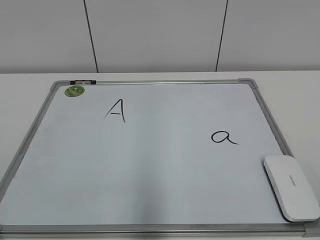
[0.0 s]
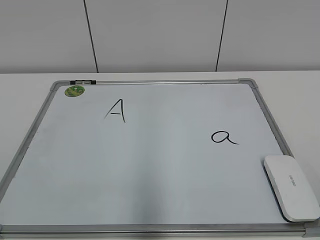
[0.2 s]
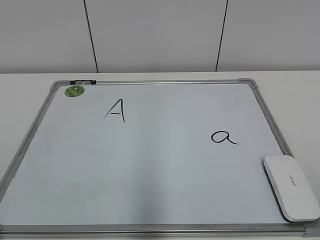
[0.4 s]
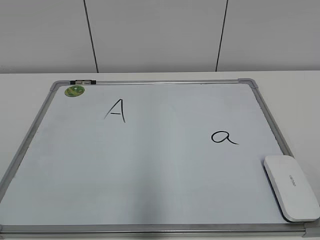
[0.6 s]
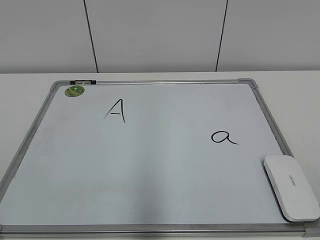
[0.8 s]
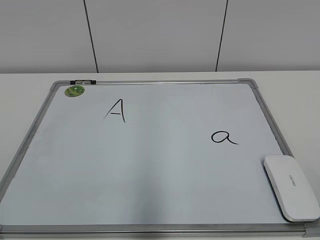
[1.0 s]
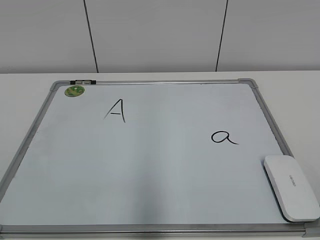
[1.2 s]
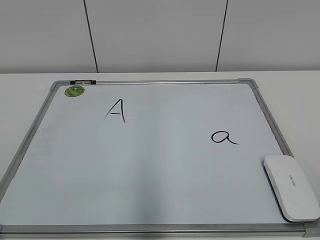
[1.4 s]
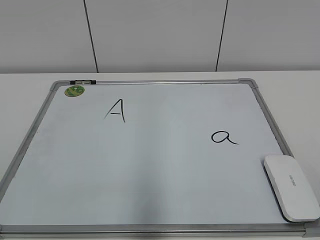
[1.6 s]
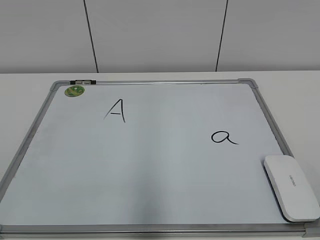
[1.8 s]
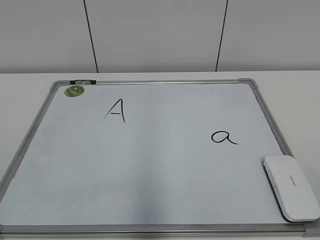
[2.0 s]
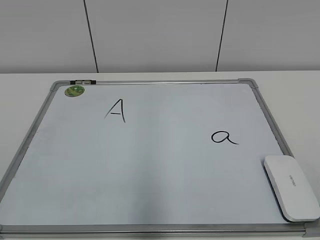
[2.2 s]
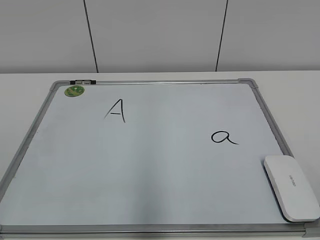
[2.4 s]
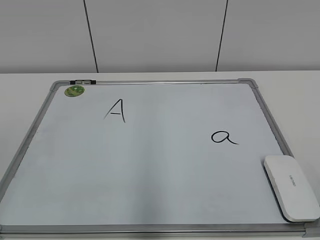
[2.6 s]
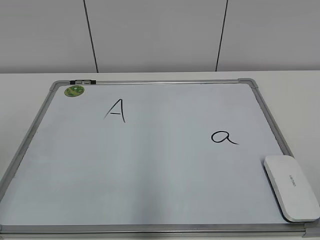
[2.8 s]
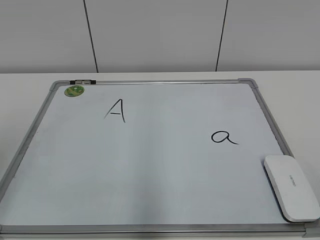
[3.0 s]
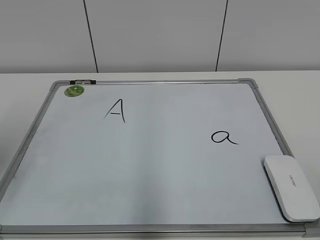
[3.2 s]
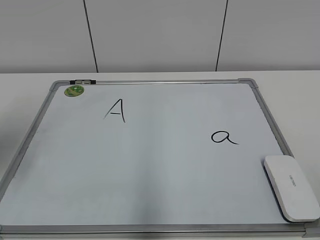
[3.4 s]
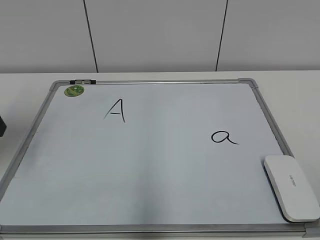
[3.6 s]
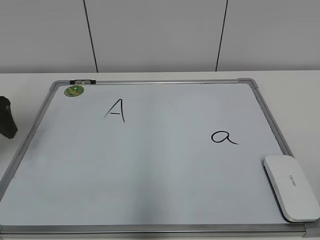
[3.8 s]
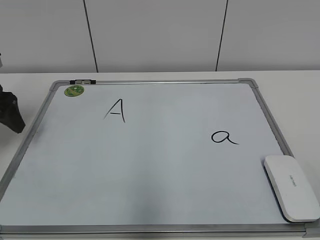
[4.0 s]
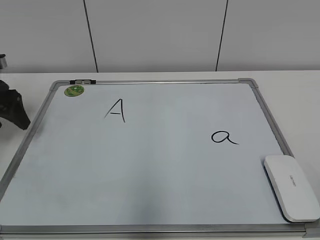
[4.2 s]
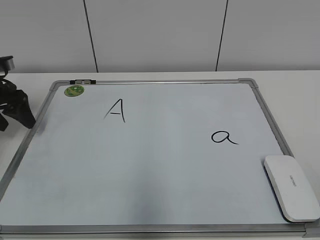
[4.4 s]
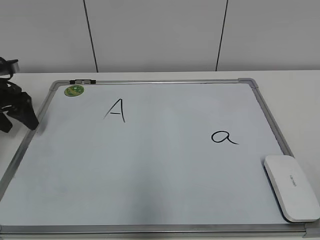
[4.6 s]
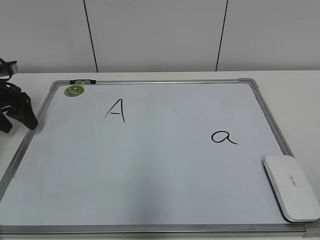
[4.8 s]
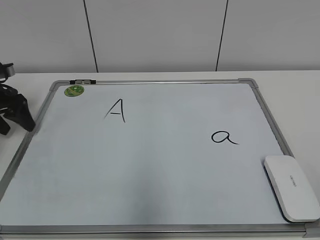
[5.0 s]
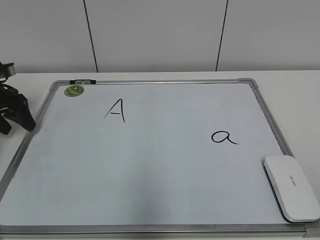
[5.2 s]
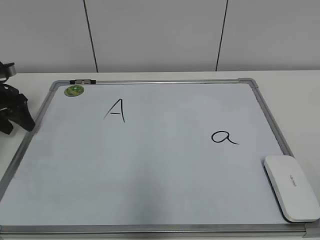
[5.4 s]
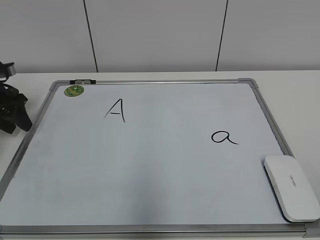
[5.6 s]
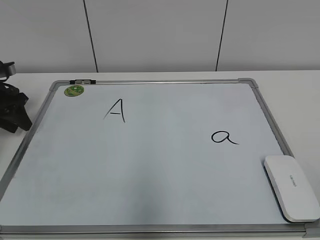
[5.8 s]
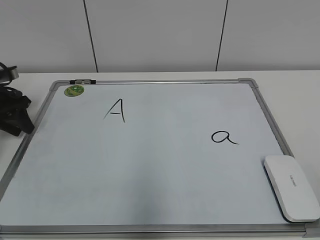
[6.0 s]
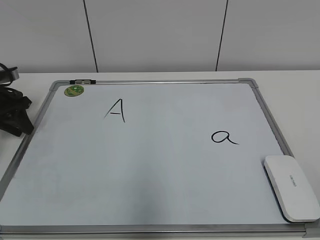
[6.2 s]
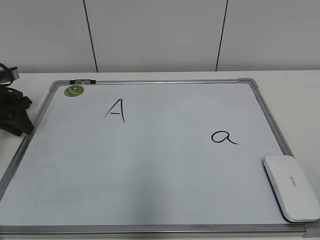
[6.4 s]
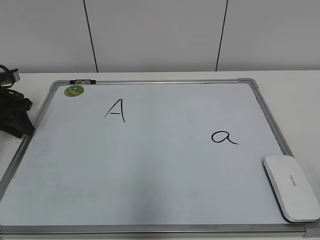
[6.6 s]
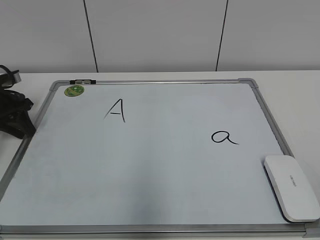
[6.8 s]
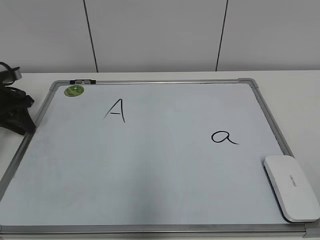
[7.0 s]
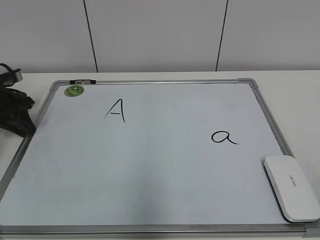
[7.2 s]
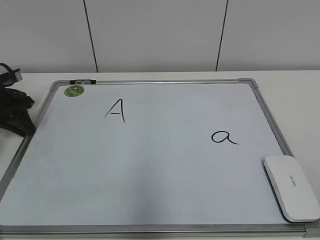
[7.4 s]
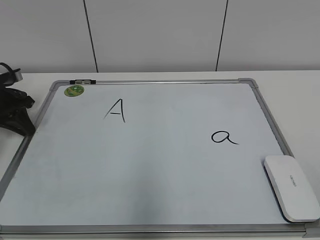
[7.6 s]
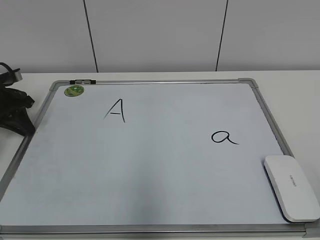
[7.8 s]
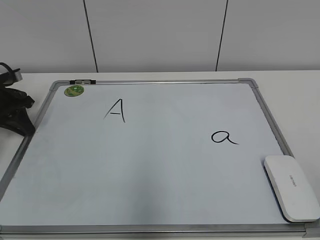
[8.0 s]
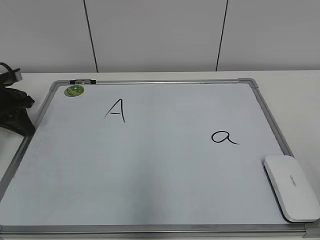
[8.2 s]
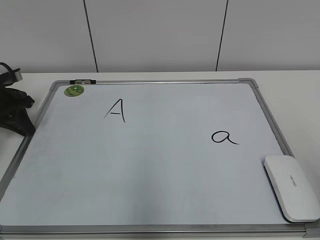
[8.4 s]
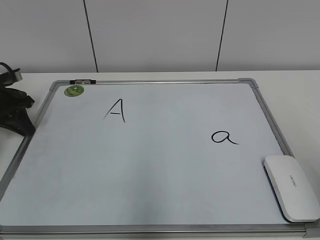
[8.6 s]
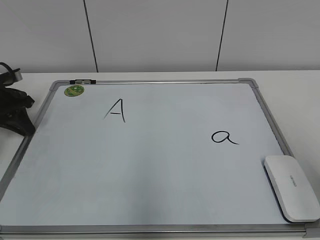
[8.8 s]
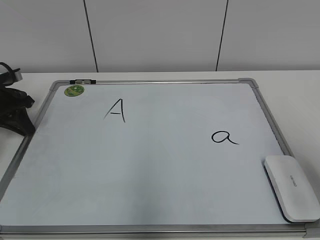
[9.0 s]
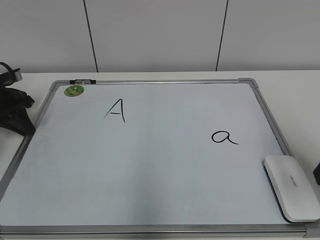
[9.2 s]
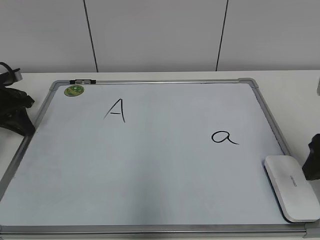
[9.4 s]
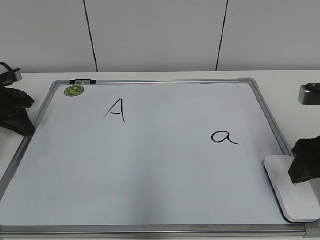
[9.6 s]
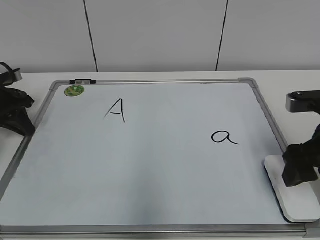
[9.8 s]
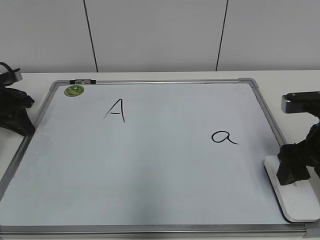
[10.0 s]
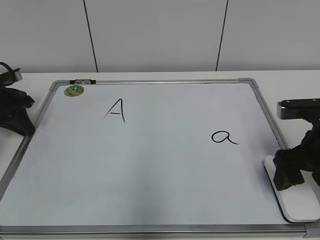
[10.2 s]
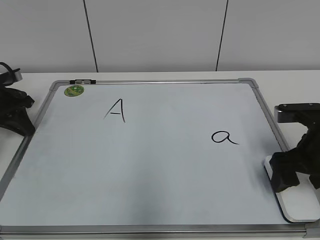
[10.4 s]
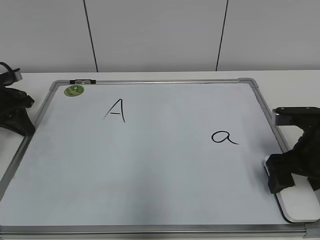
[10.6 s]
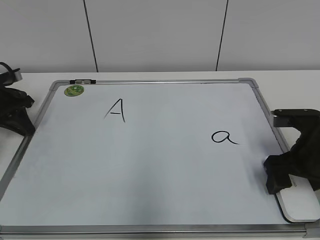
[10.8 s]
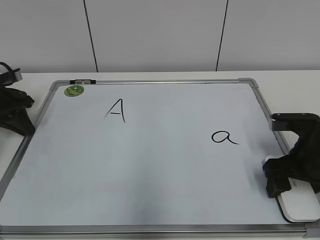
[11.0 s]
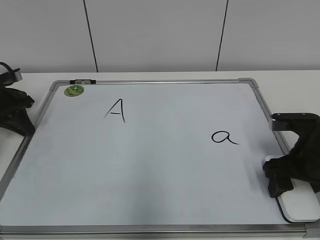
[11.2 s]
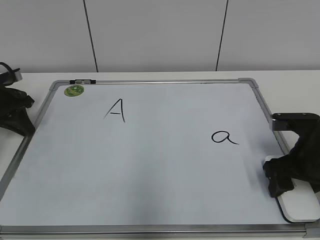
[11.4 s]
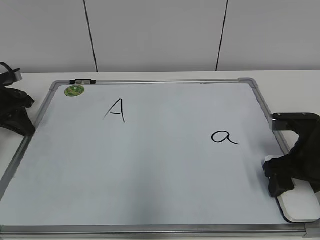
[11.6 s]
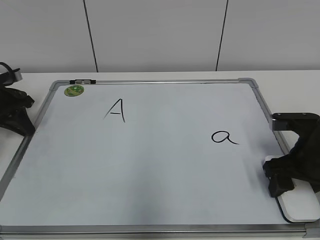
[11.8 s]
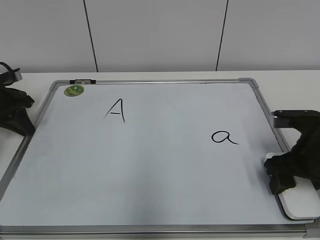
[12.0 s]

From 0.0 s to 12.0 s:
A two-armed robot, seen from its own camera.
Task of the whole recording: pick up the eraser on the blackboard and erase the letter "a".
Step, from 0.0 s to 7.2 s: Hold the drawing board steady with your left hand.
Step, from 7.4 s to 11.8 s: Grab the eraser with your right hand.
From 3.0 s to 4.4 s: The left gripper goes approximately 25 cm forward and downward.
From 4.4 s to 6.0 s: The left gripper closes up.
From 6.0 s to 7.6 s: The left gripper closes up.
From 7.6 s to 9.0 s: The right gripper is displaced forward by some 15 cm.
From 9.0 s to 10.4 s: The right gripper goes about 15 cm forward and downward, and opens.
From 10.4 s to 12.0 s: The right gripper closes its fingers.

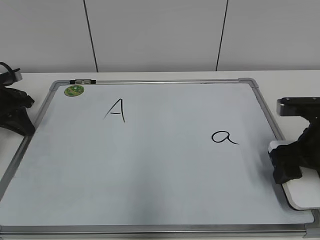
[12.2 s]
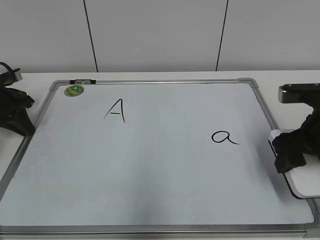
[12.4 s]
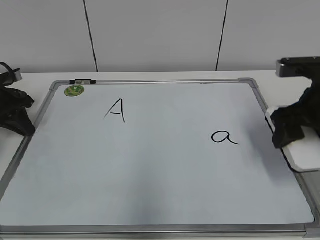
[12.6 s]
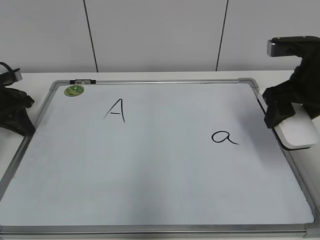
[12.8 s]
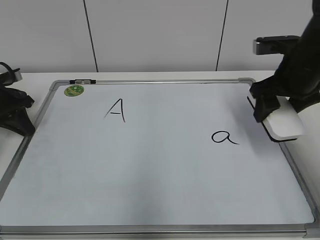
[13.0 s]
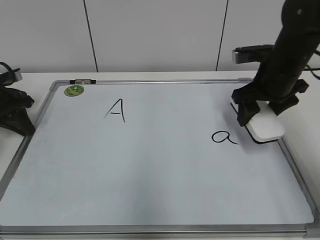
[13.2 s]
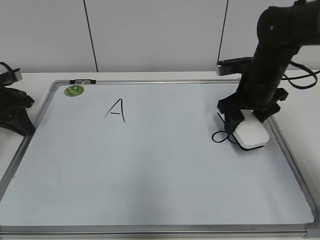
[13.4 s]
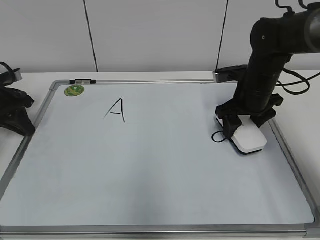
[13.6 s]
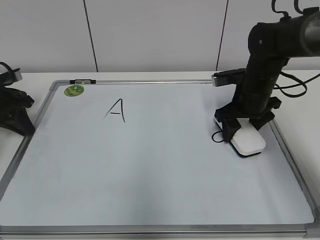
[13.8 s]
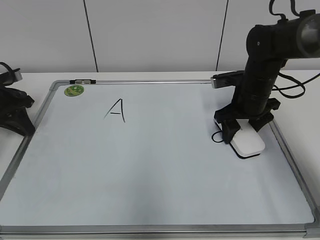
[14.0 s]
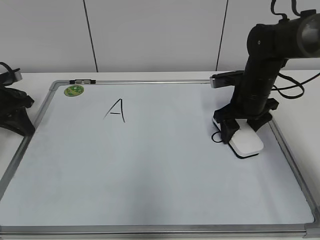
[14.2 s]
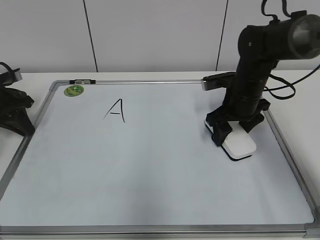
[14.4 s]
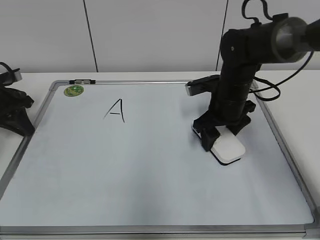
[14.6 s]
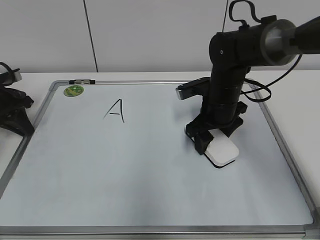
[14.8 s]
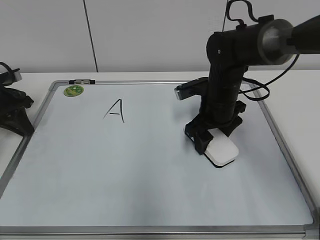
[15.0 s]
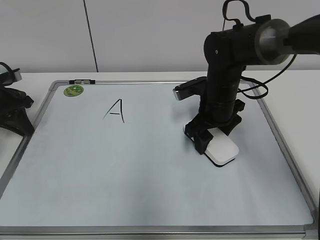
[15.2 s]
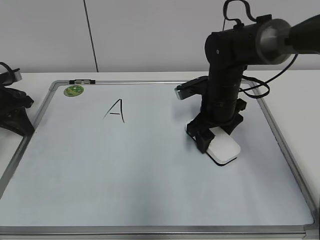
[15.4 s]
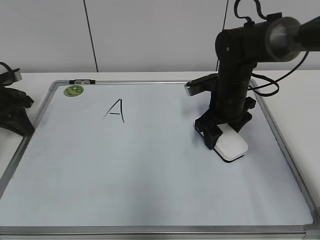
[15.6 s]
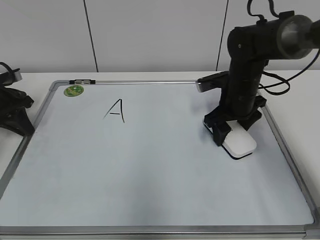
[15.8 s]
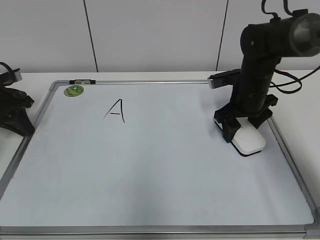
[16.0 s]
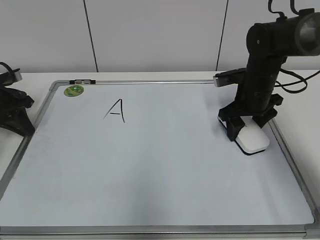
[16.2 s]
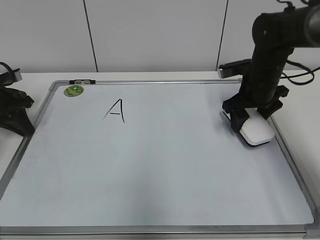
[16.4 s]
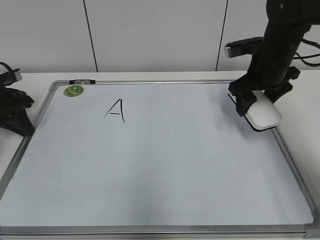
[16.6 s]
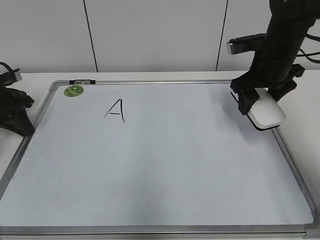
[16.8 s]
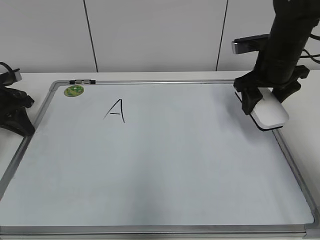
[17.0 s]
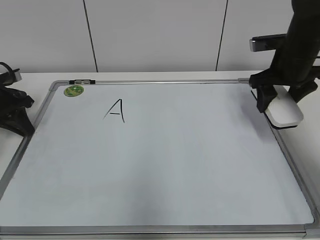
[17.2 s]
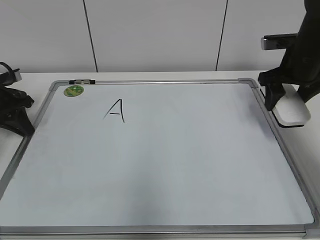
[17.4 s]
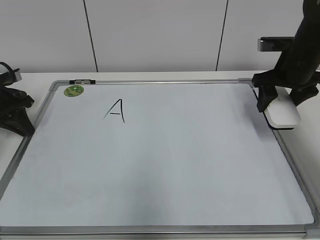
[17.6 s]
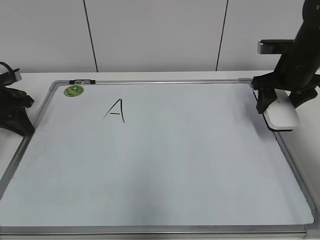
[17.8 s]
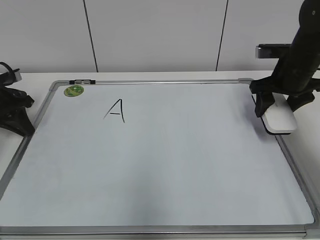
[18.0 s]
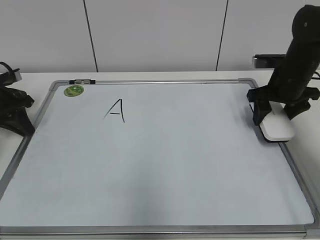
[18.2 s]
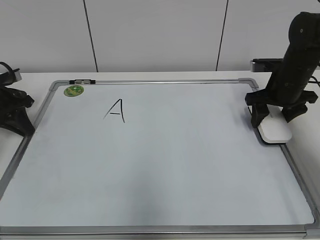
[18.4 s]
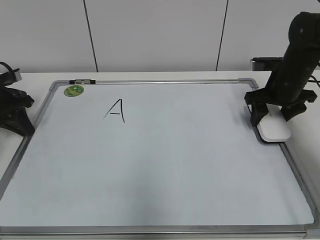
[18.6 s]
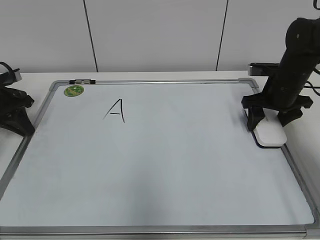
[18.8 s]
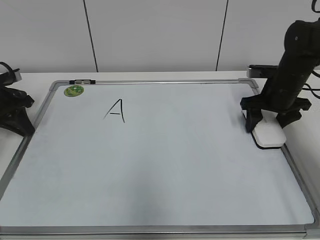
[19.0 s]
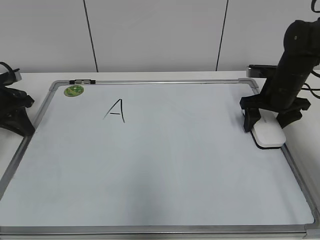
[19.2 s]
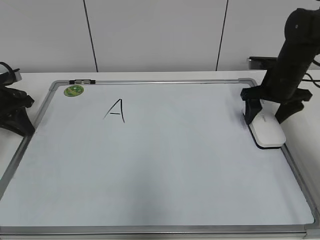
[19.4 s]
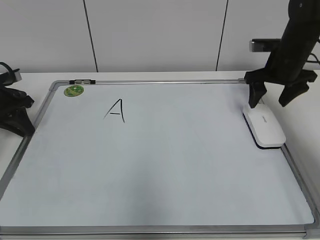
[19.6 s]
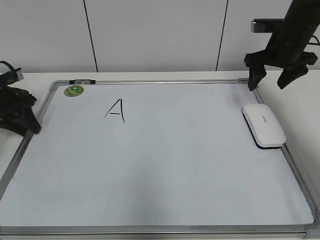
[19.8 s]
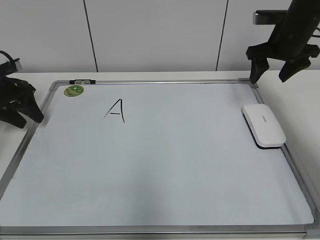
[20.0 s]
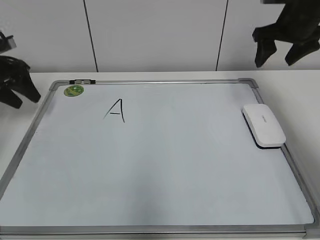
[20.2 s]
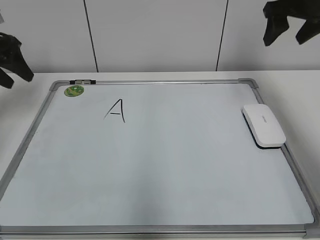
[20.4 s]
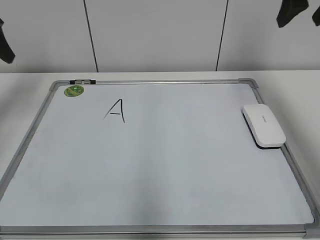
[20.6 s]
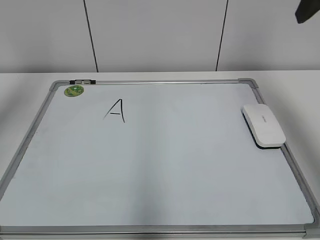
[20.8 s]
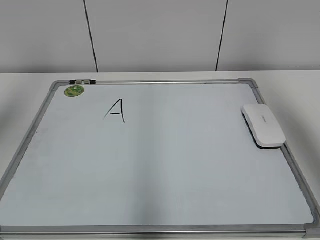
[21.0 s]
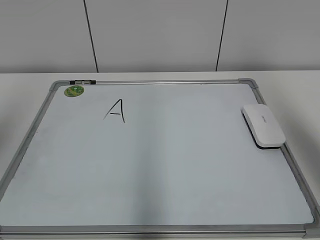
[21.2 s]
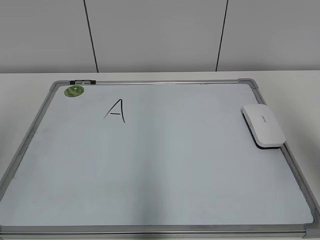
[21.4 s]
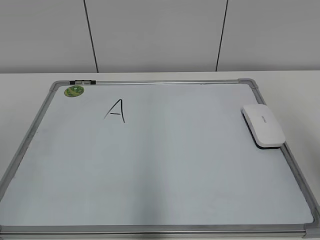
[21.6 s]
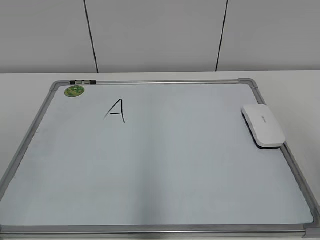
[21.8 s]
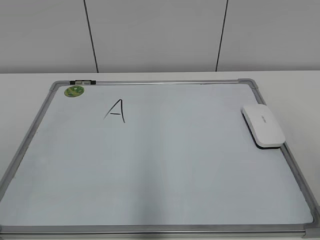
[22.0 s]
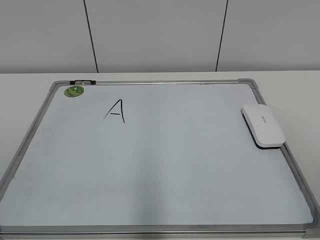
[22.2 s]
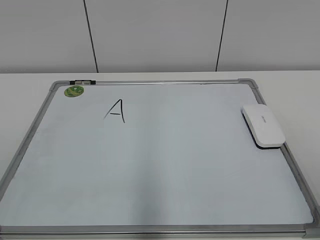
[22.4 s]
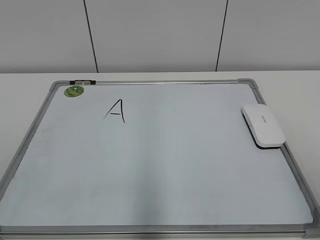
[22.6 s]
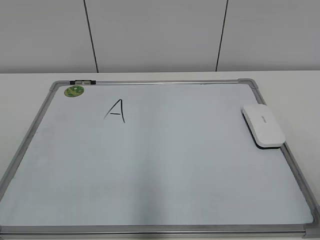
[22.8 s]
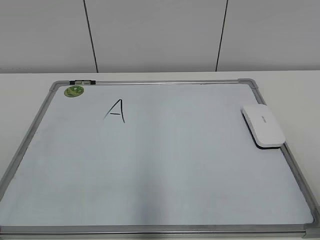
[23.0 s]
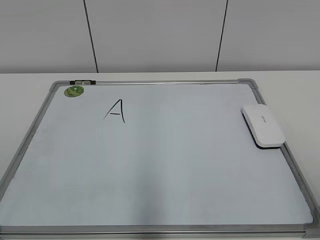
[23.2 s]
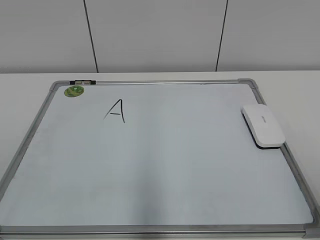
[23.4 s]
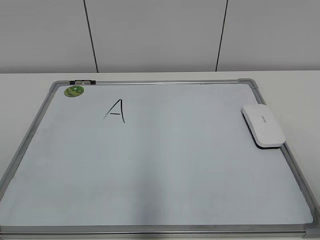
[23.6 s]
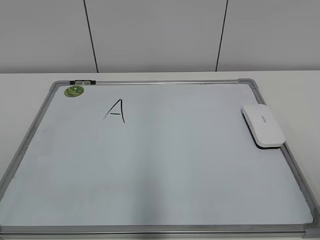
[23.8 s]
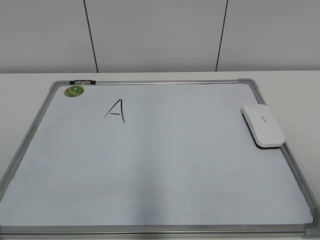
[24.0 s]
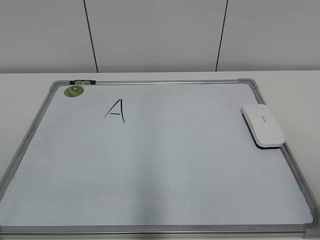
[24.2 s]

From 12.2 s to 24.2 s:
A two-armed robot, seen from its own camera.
Task of the whole recording: pick up the eraser on the blackboard and erase the letter "a".
Step, from 12.2 s to 16.2 s: Erase the letter a with your right hand.
Step, from 16.4 s to 19.0 s: Put down the eraser with your right hand.
From 12.2 s to 13.8 s: The right gripper travels forward by roughly 15 cm.
From 13.8 s to 15.2 s: The right gripper heads to the left, covering some 5 cm.
From 15.2 s to 16.6 s: The right gripper moves to the right and upward, about 10 cm.
From 16.6 s to 18.2 s: The right gripper shifts some 5 cm to the right.
From 18.2 s to 19.8 s: The right gripper is displaced upward by about 5 cm, and opens up.
From 19.8 s to 21.2 s: The right gripper shifts approximately 30 cm backward and upward. Meanwhile the left gripper goes some 35 cm upward and backward, and opens up.
From 21.2 s to 22.6 s: Both grippers travel together backward and downward, some 20 cm.
